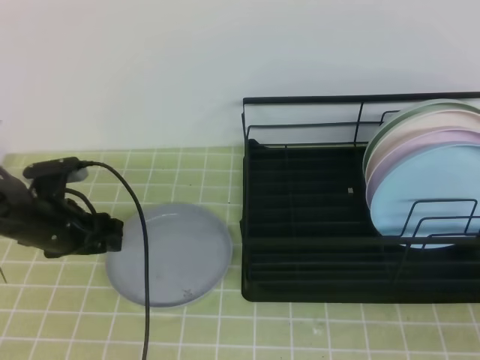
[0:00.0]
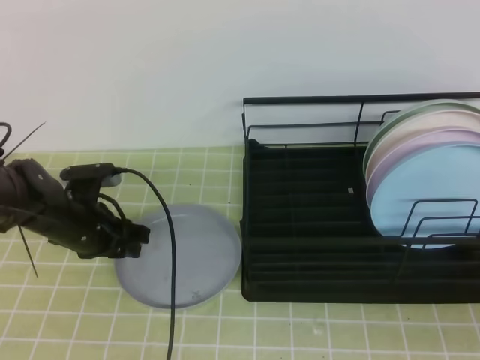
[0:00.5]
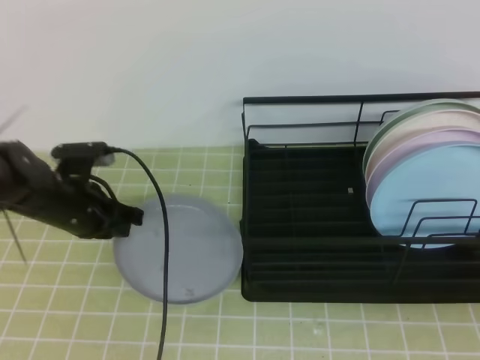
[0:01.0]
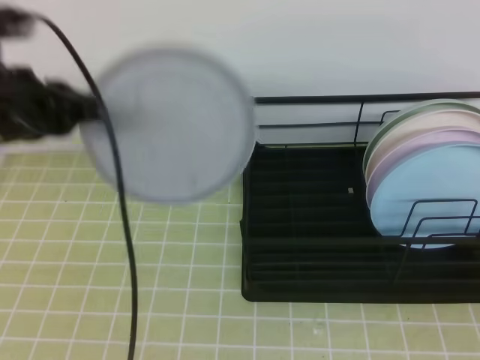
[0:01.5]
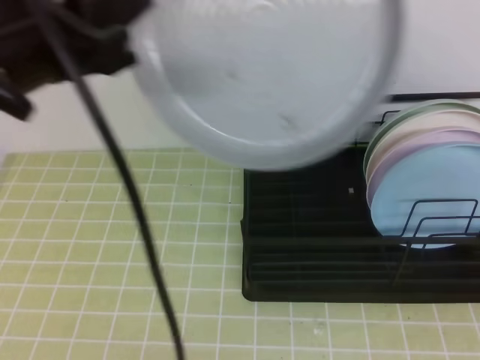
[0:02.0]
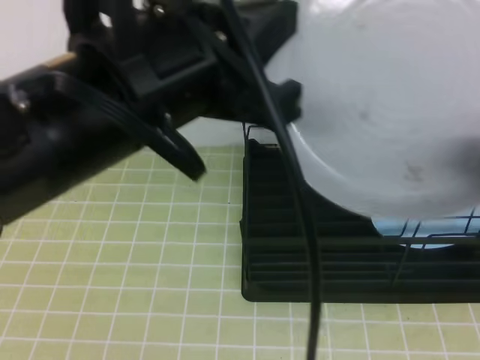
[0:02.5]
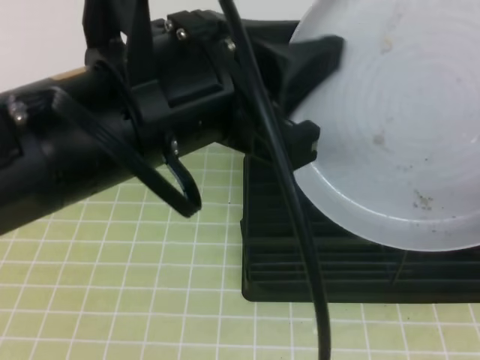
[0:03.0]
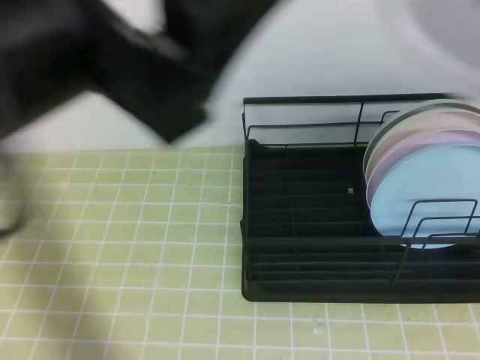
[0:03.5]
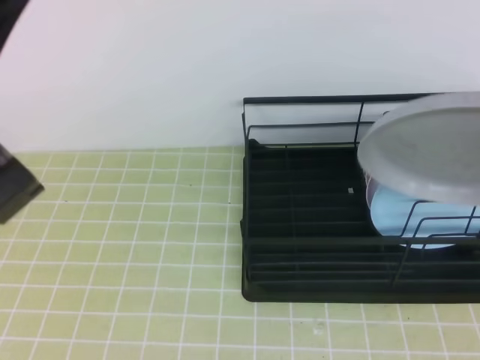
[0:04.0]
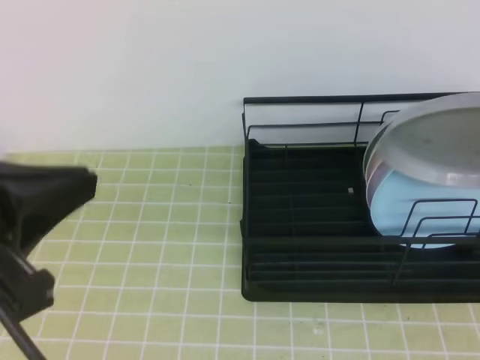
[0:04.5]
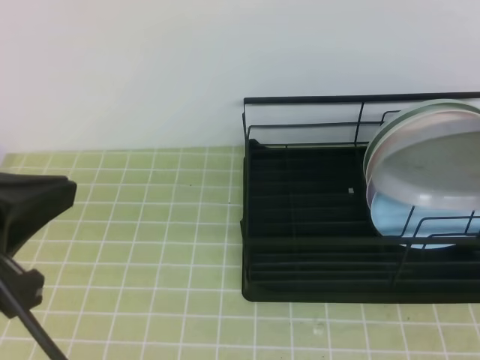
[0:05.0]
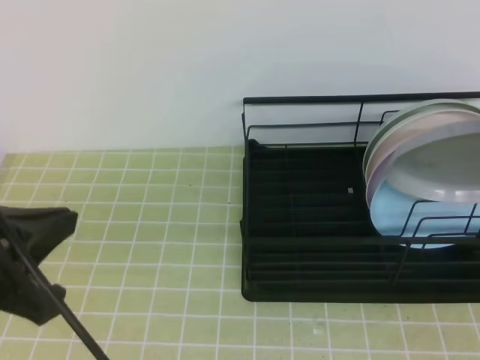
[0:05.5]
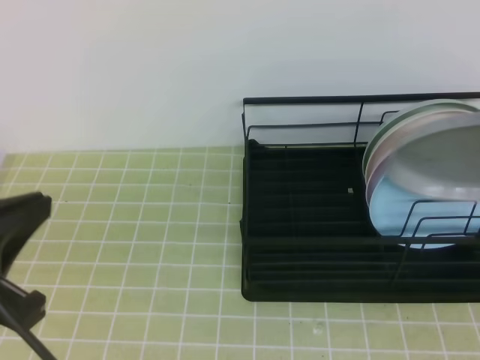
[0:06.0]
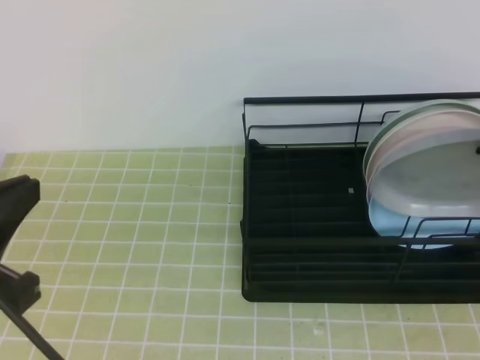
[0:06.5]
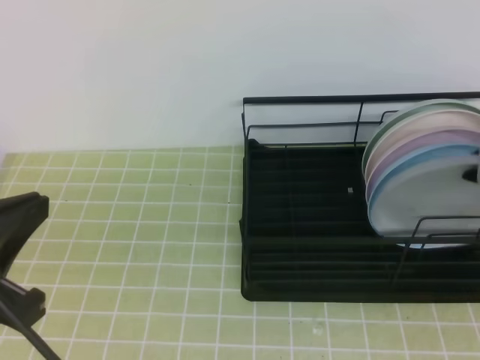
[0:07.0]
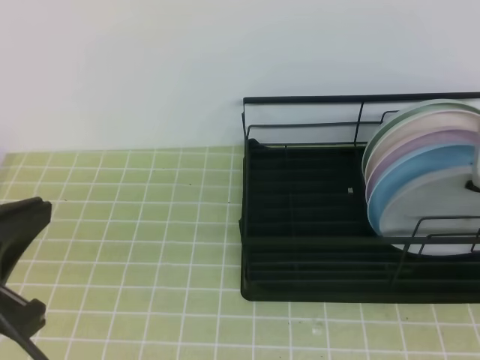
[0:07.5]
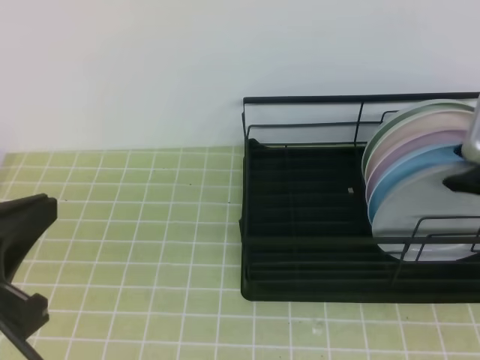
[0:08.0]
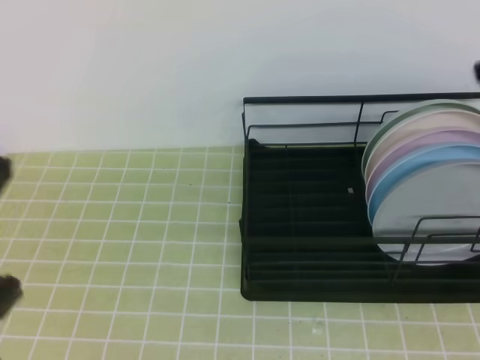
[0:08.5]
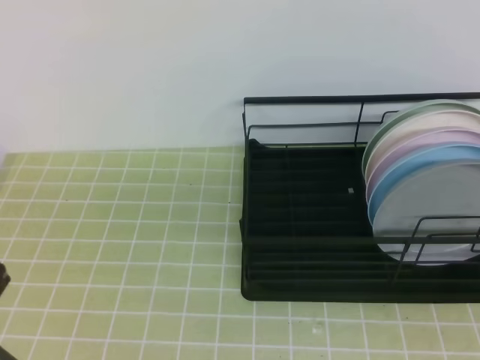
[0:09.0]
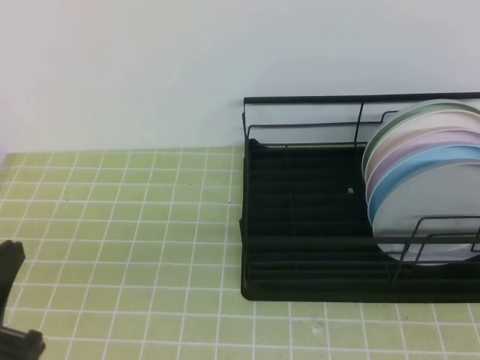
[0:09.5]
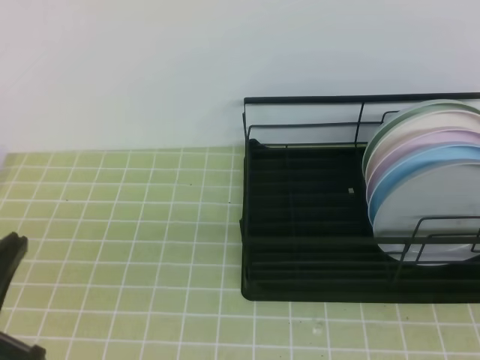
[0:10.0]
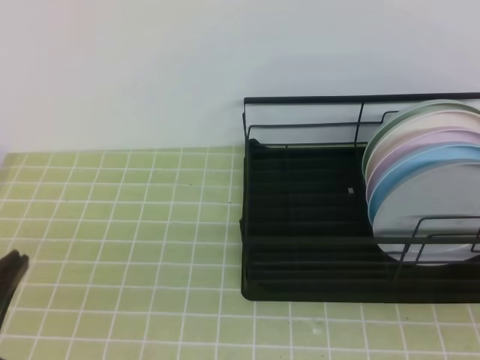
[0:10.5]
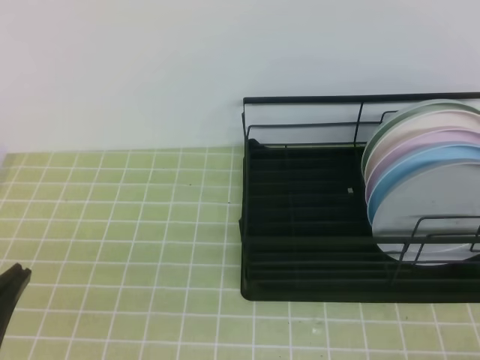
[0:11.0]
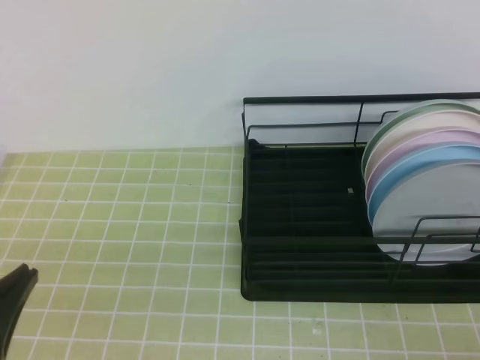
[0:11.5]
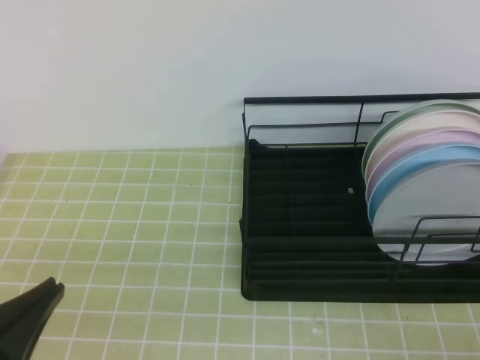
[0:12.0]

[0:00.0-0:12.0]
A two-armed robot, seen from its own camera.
0:00.0 to 0:02.0: The left gripper moves upward and backward, roughly 30 cm, and closes up; the right gripper heads upward, covering roughly 10 cm, and opens.
0:02.0 to 0:04.0: The left gripper heads backward, covering some 10 cm, and opens and closes again; the right gripper moves forward and upward, roughly 10 cm, and closes up.
0:04.0 to 0:06.0: The left gripper is displaced downward by about 15 cm. Meanwhile the right gripper travels forward by approximately 5 cm.
0:06.0 to 0:08.0: The right gripper shifts some 5 cm downward, and opens up.
0:08.0 to 0:10.0: The right gripper goes about 20 cm backward, and closes. Meanwhile the left gripper shifts roughly 5 cm downward.

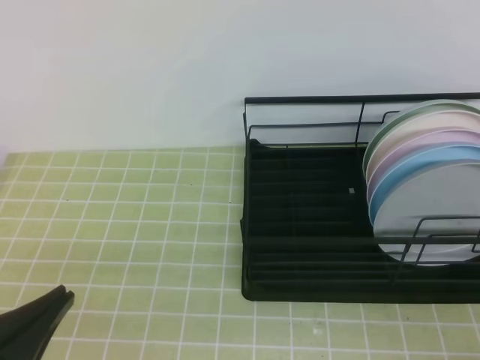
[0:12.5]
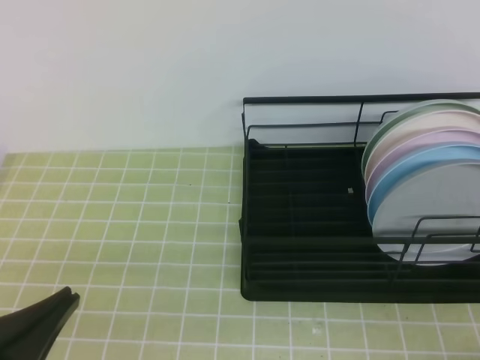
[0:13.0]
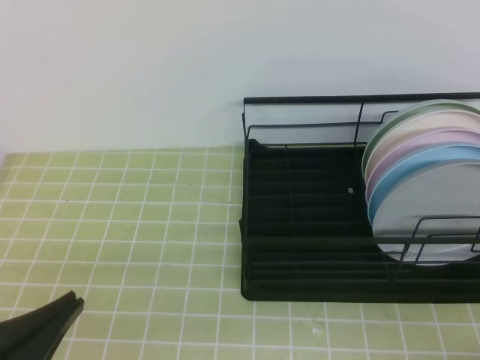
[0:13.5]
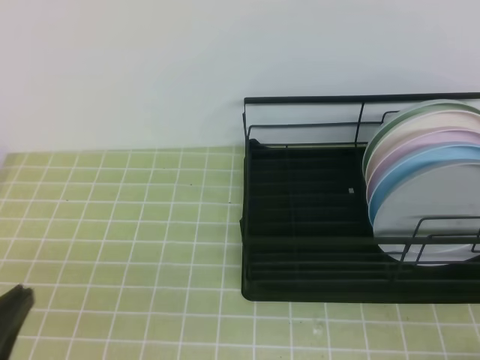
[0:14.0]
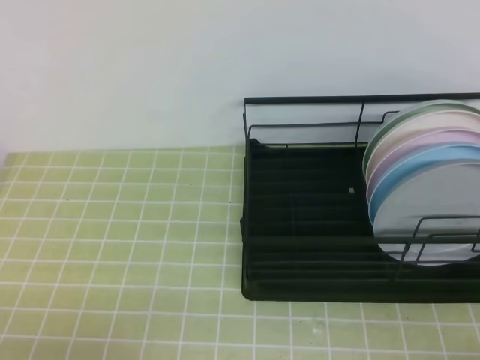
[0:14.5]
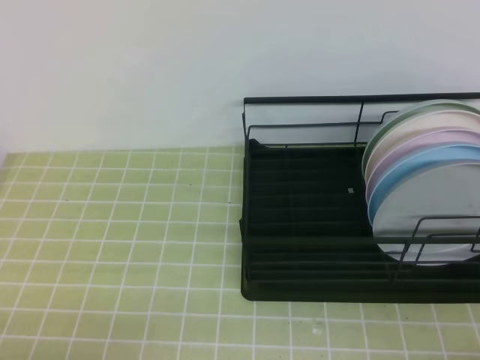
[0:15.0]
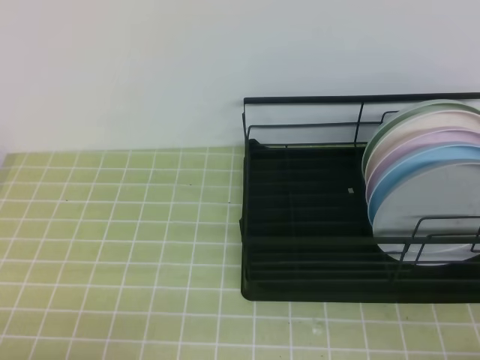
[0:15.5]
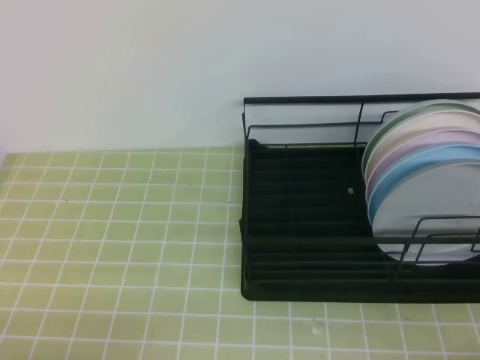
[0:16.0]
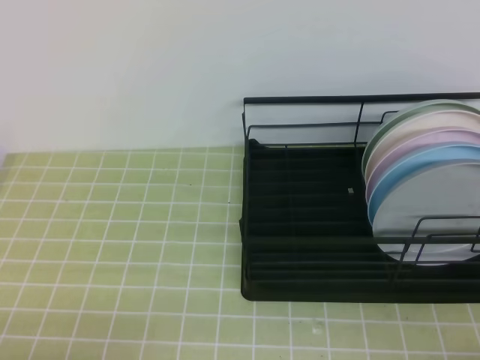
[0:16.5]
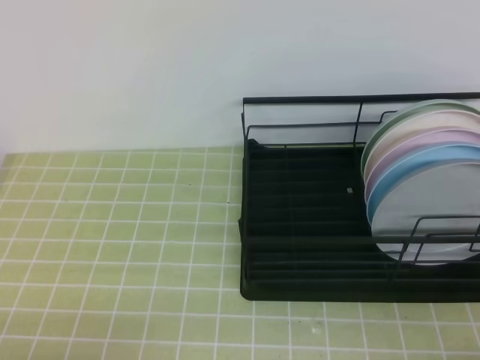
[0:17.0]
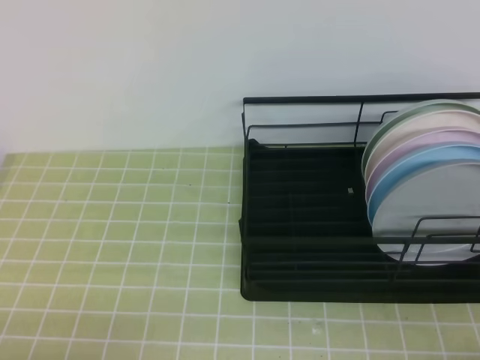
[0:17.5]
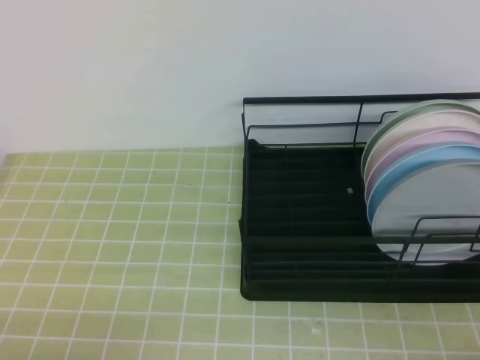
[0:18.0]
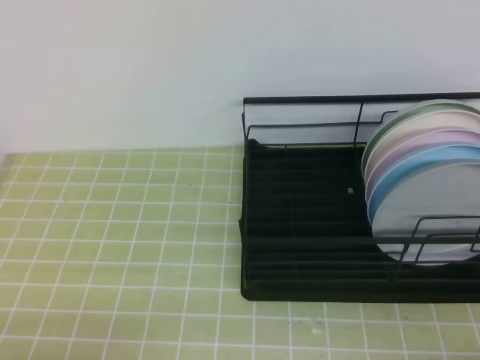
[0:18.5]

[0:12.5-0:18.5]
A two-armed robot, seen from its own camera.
0:12.5 to 0:14.5: The left gripper moves downward, about 5 cm.
0:16.5 to 0:18.5: Both grippers stay about where they are.
